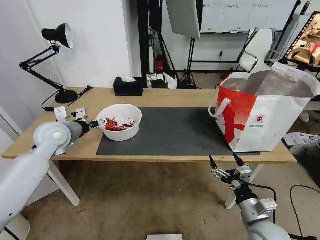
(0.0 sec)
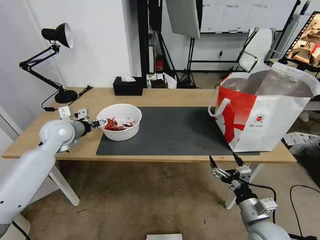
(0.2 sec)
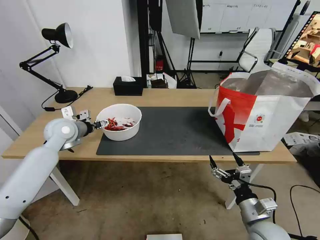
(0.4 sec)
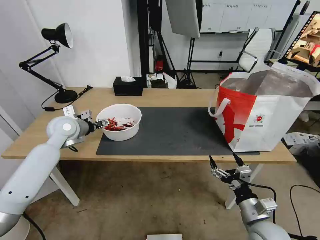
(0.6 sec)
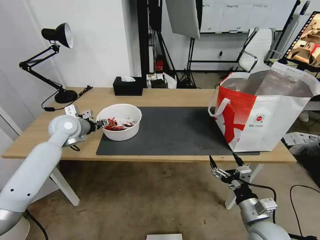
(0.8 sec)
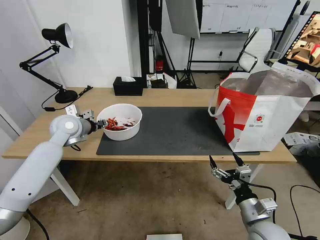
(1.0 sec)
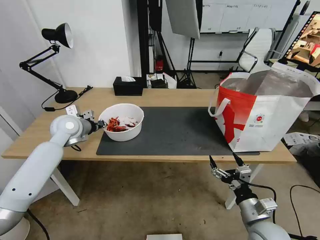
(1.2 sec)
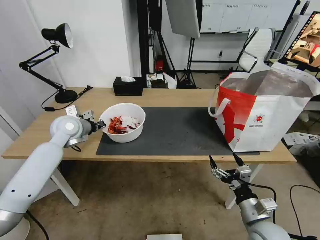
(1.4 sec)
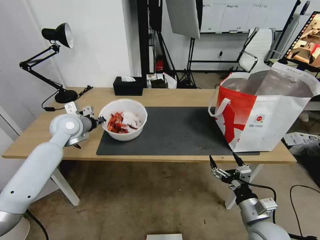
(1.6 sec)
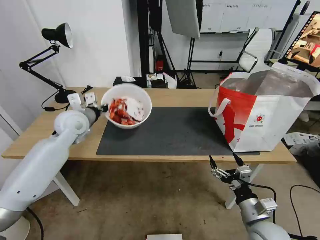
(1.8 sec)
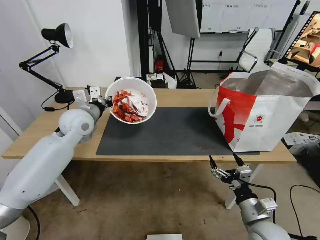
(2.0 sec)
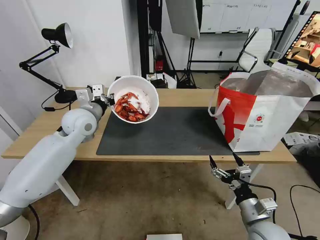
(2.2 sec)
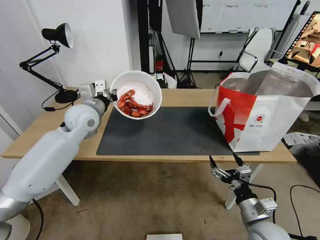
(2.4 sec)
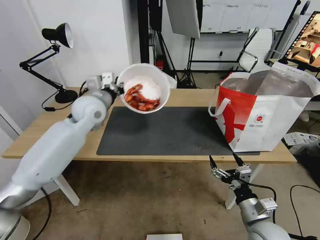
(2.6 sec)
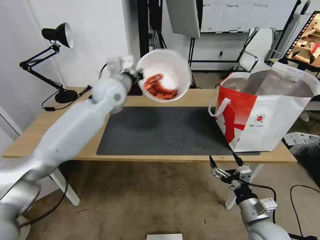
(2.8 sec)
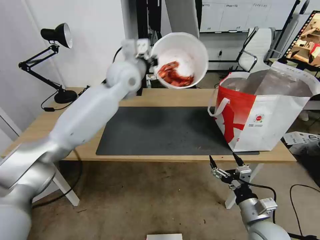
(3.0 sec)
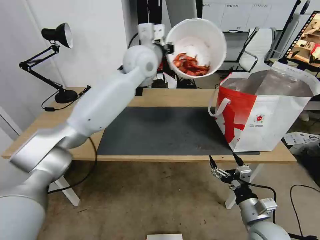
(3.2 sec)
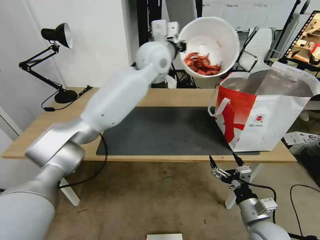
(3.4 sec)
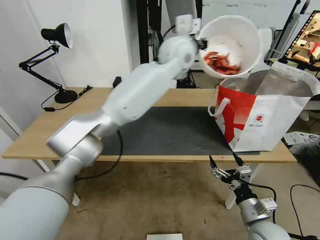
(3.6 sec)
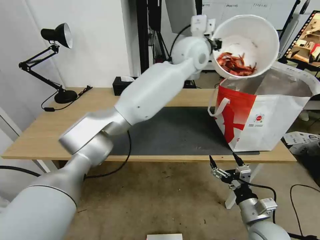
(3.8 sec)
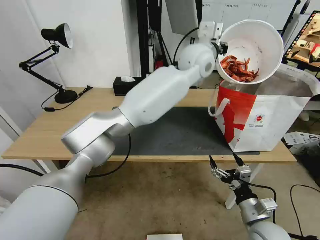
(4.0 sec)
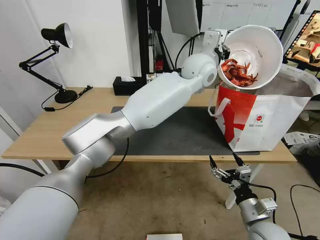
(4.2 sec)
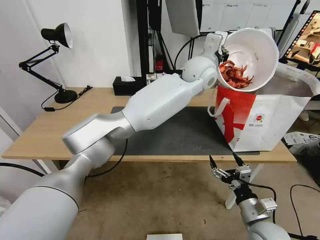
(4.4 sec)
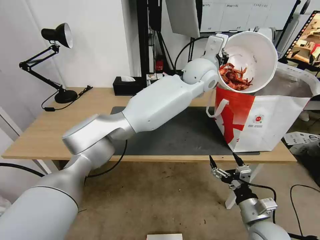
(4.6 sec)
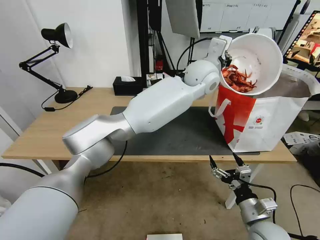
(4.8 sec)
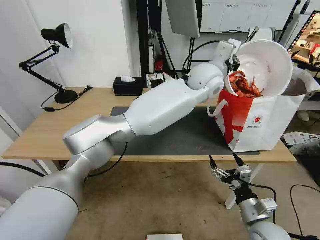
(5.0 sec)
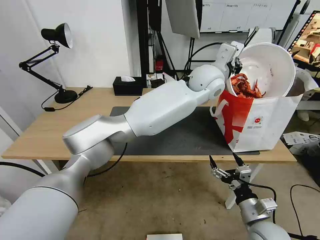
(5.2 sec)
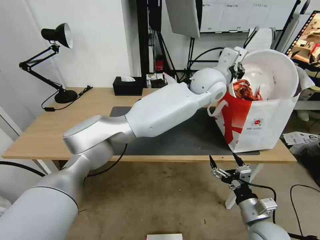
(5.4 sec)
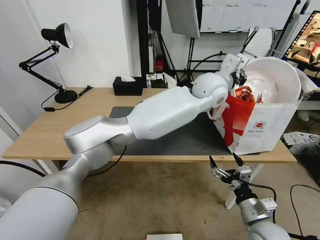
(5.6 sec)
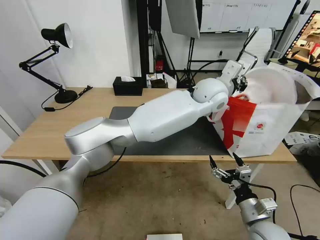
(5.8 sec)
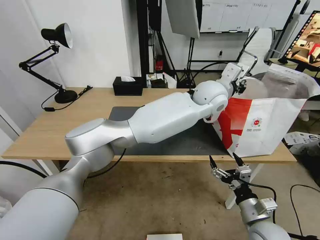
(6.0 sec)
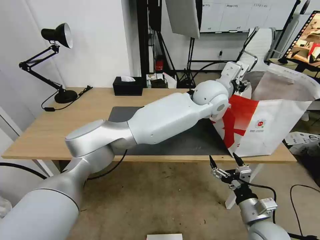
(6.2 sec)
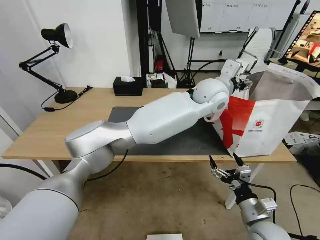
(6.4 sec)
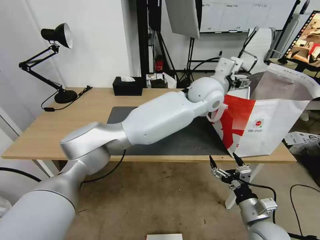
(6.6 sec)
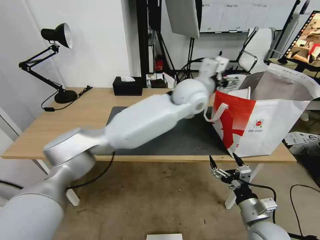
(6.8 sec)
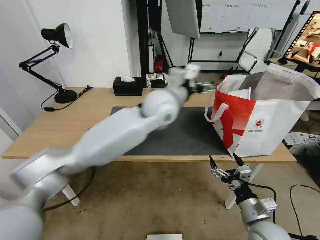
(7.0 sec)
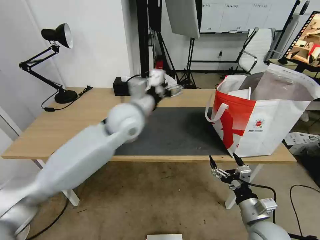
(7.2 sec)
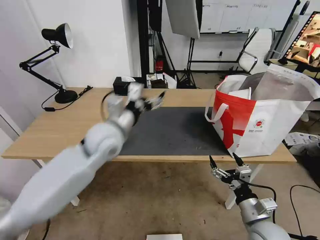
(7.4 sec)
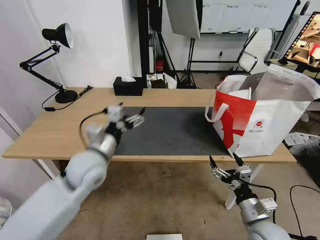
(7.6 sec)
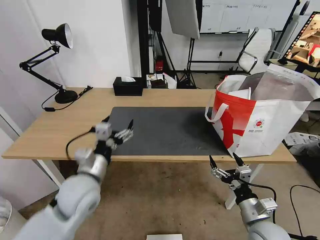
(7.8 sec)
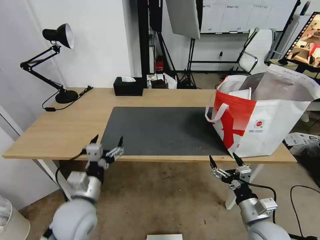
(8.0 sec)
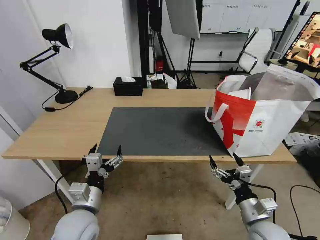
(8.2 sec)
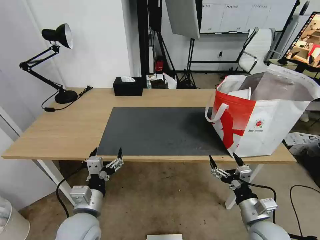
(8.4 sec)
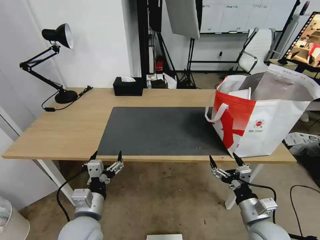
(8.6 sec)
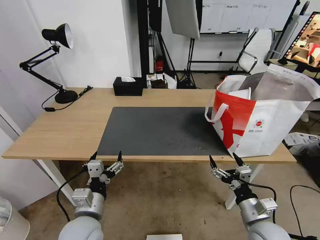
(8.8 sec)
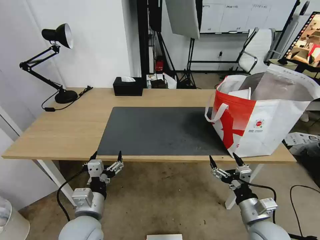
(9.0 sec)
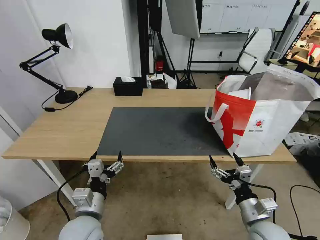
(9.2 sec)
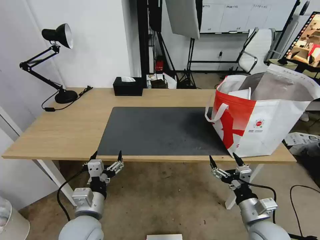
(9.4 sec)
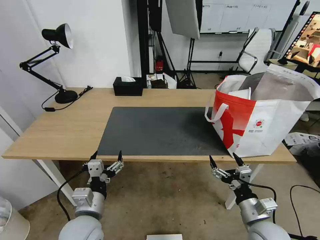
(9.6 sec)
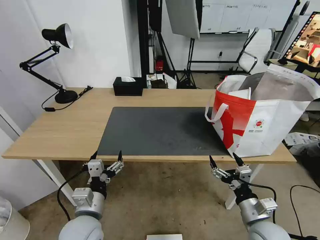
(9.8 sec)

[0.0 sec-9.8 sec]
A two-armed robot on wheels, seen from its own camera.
Task of the whole recording: Pick up the trash from the table and place it into the takeout bag.
0.0 sec to 1.4 sec: The left gripper closes.
1.4 sec to 2.8 sec: The left gripper shifts approximately 20 cm to the right and upward.
2.8 sec to 4.2 sec: The left gripper travels to the right by approximately 25 cm.
4.2 sec to 5.6 sec: The left gripper ends up approximately 5 cm from where it was.
5.6 sec to 7.0 sec: The left gripper goes roughly 15 cm to the left, and opens up.
7.0 sec to 8.4 sec: The left gripper is displaced backward, downward and to the left by about 40 cm.
8.4 sec to 9.8 sec: The two grippers keep their place.

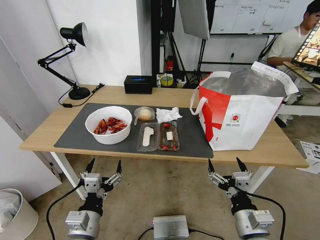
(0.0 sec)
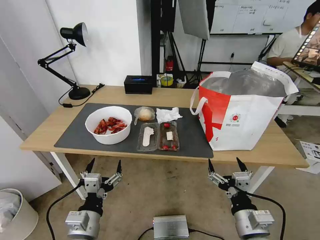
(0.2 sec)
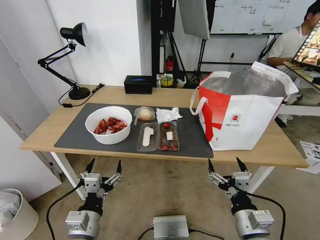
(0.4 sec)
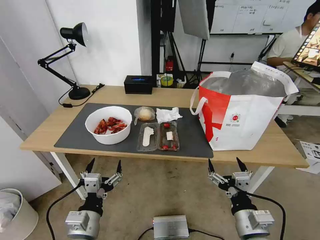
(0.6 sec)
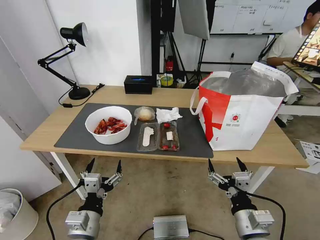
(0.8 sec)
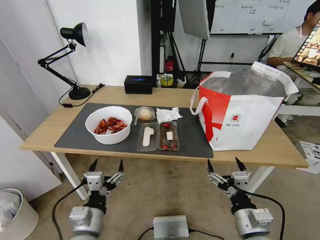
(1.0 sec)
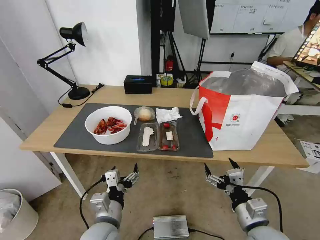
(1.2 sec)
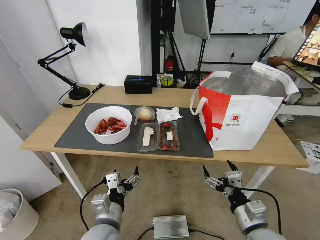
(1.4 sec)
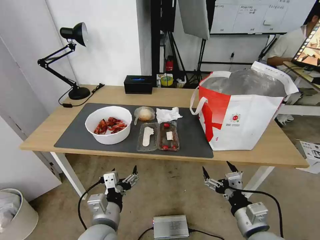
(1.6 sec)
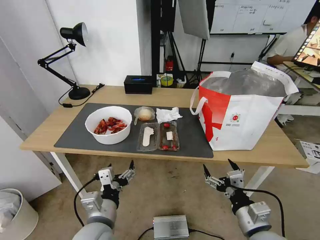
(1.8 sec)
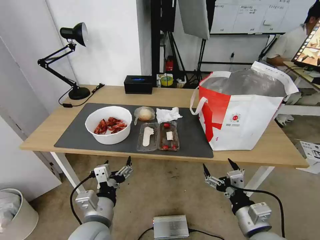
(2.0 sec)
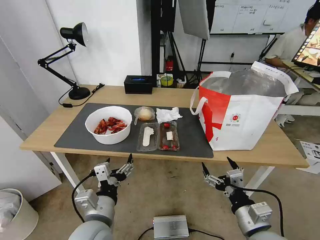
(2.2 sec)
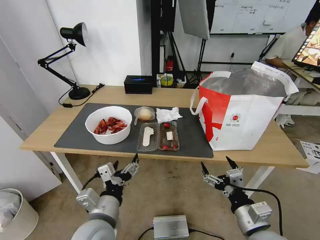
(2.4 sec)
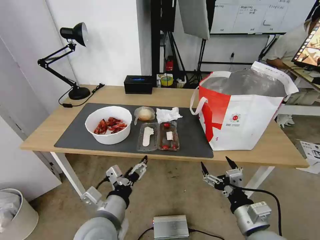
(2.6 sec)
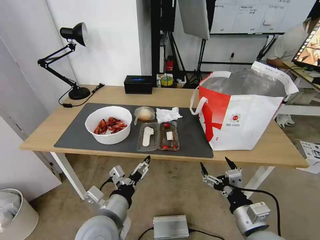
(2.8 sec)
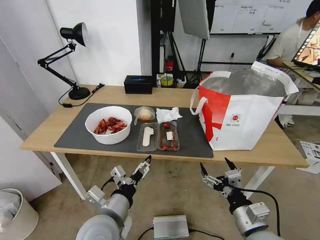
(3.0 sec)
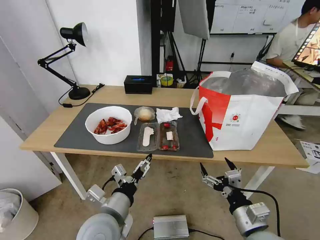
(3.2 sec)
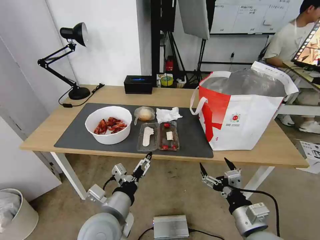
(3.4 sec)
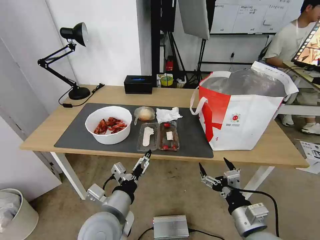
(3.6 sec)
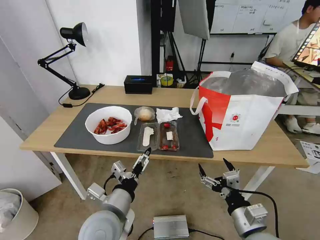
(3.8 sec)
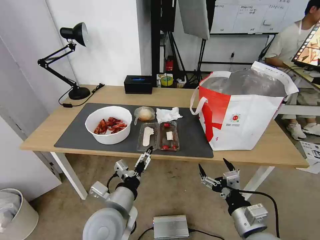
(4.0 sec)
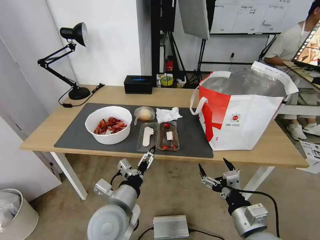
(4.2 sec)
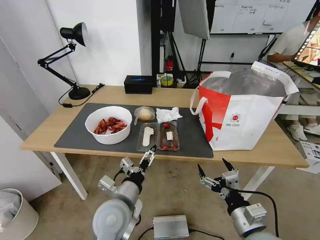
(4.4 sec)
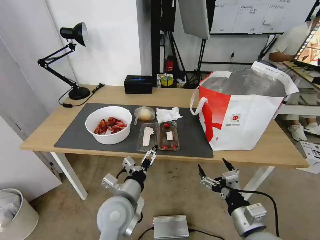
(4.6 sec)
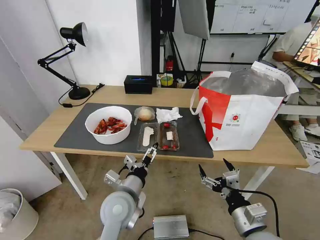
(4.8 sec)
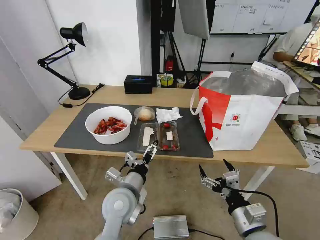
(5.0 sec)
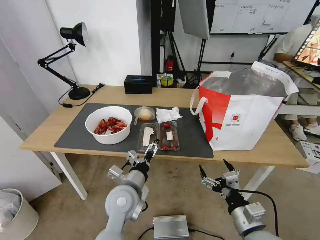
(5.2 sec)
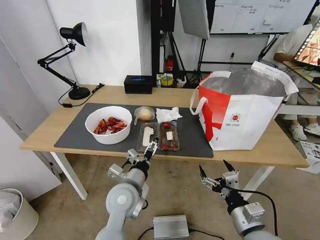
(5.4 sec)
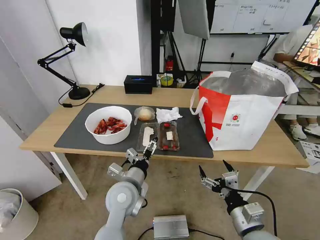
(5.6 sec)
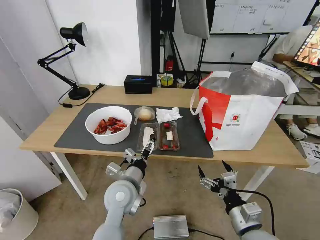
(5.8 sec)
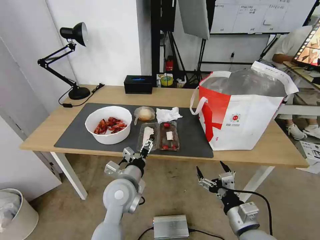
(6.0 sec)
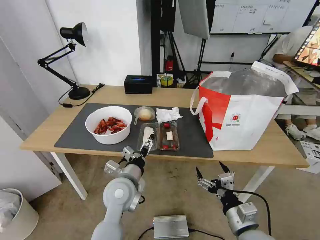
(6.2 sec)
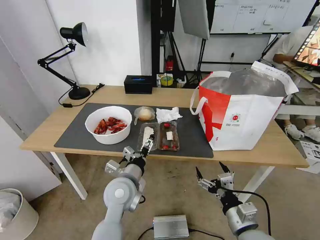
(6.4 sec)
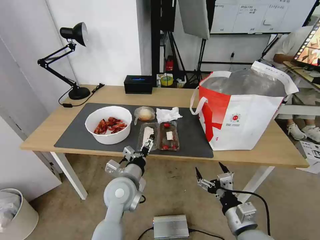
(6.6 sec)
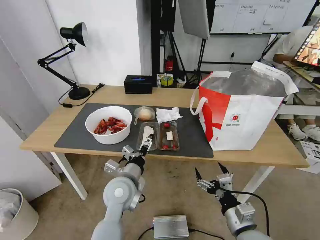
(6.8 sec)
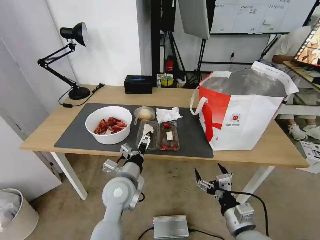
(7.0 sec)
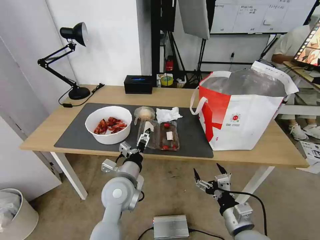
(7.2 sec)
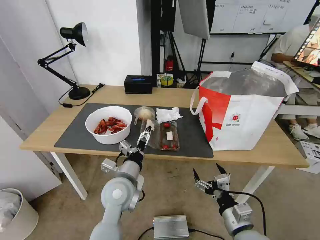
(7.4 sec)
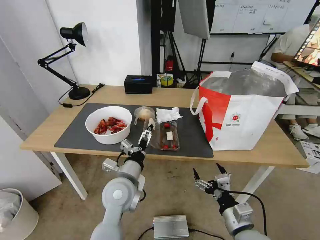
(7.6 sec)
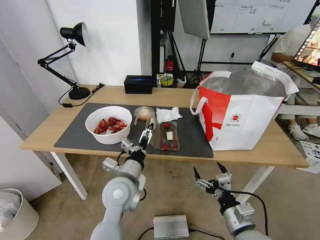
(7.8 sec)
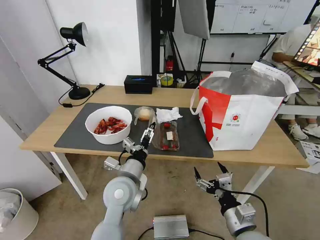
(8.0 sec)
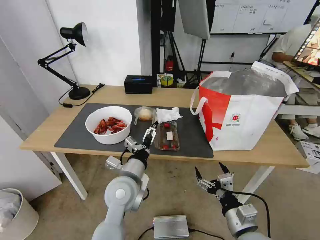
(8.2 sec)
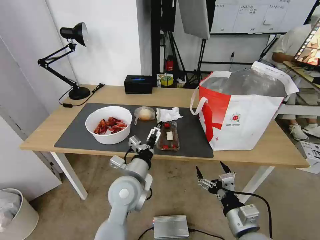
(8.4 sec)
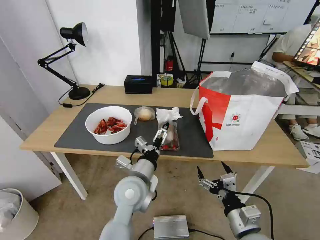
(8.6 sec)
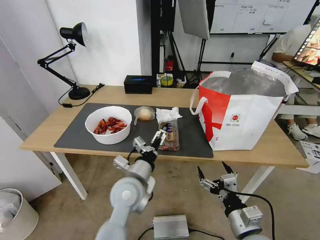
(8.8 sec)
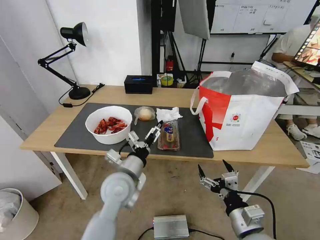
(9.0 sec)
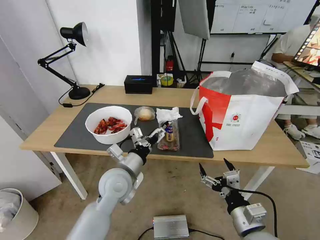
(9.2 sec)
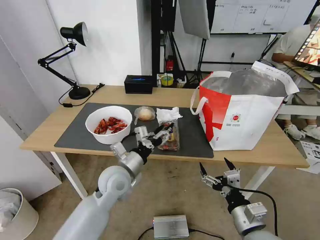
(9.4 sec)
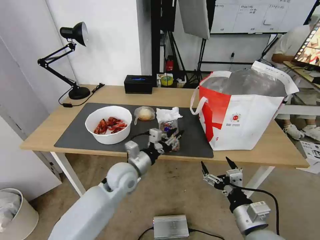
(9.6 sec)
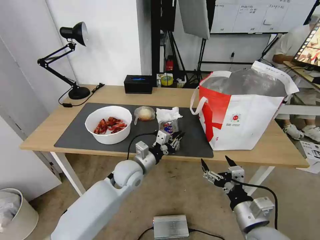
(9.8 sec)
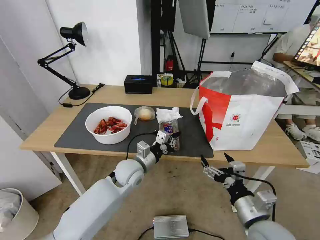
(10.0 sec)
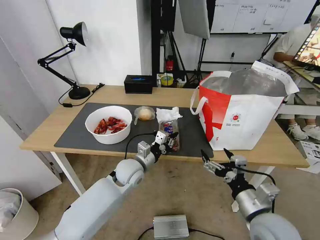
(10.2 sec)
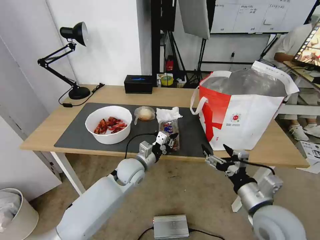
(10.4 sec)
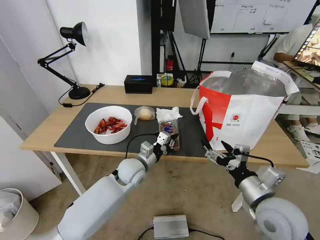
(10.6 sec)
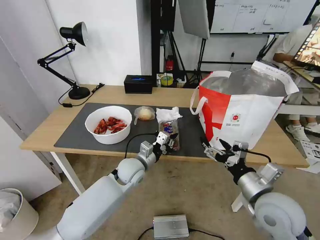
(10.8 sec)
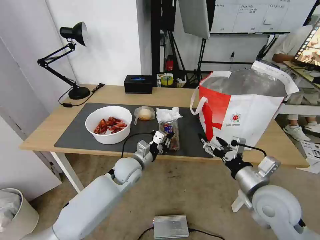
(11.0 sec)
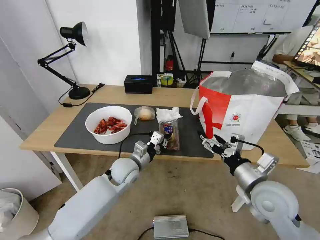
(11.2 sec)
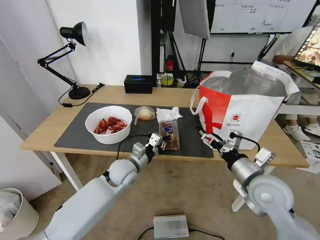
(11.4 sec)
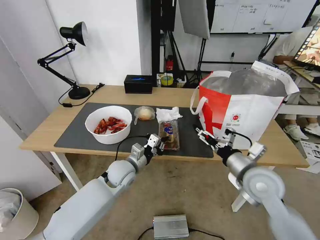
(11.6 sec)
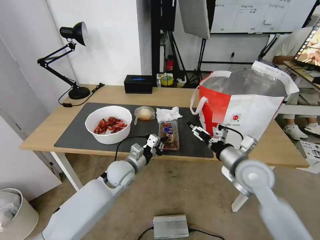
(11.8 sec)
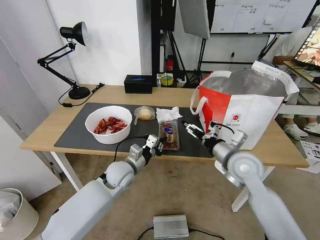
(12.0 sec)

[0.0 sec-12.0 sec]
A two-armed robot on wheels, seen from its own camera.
Task of the whole recording: Pick up the trash from the table and place it into the takeout bag.
3.0 sec to 4.4 sec: The grippers stay close to where they were, moving slightly.
4.4 sec to 6.0 sec: The left gripper heads forward, covering some 5 cm.
6.0 sec to 7.6 sec: The grippers stay close to where they were, moving slightly.
7.6 sec to 9.0 sec: There are only small adjustments of the grippers.
9.0 sec to 10.4 sec: The left gripper heads forward and downward, covering some 10 cm, and closes up. Meanwhile the right gripper is displaced upward by some 5 cm.
10.4 sec to 12.0 sec: The right gripper moves forward, approximately 15 cm.
